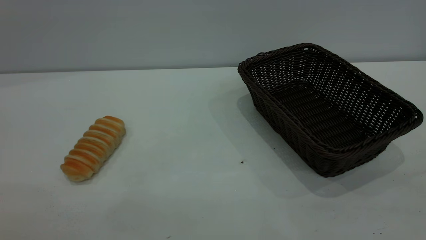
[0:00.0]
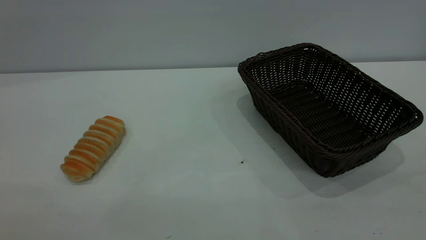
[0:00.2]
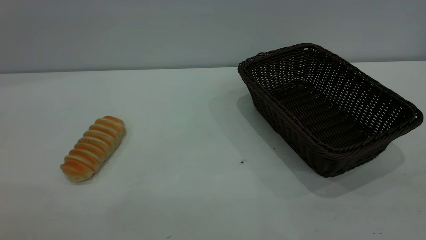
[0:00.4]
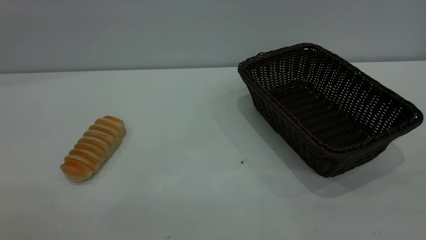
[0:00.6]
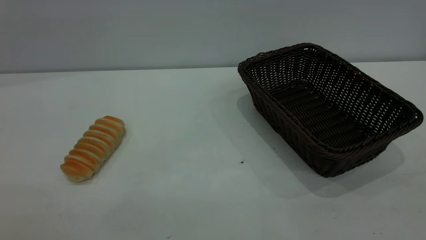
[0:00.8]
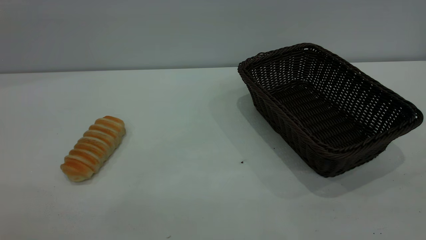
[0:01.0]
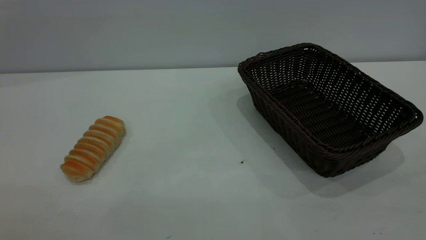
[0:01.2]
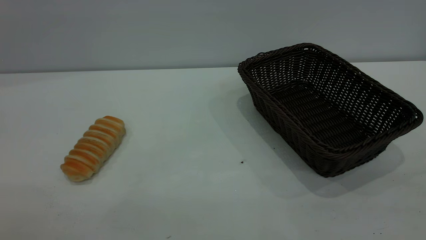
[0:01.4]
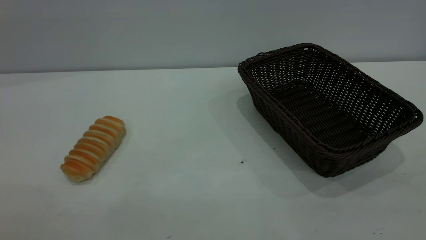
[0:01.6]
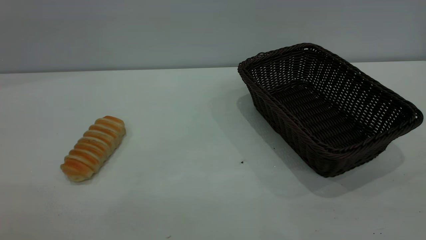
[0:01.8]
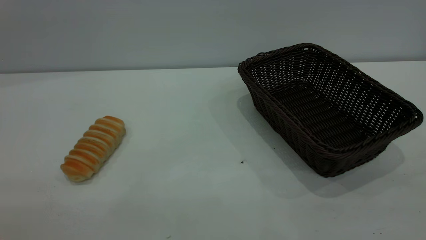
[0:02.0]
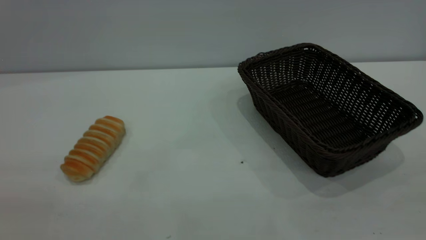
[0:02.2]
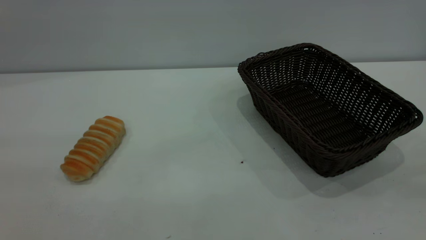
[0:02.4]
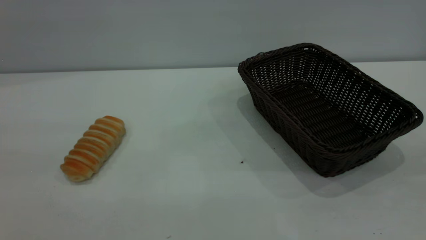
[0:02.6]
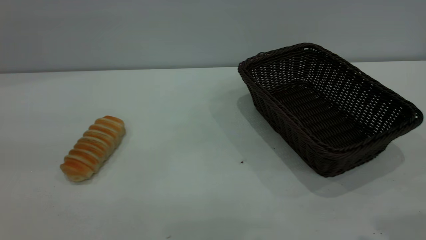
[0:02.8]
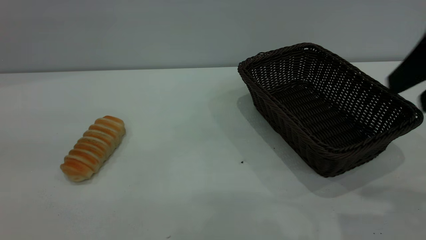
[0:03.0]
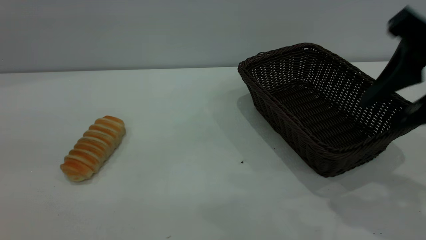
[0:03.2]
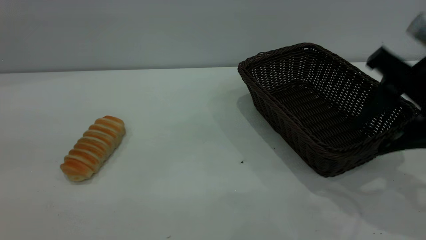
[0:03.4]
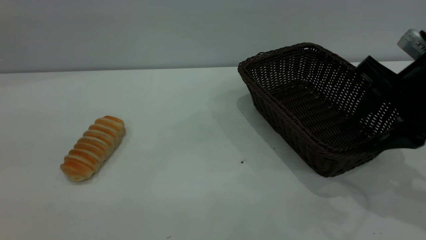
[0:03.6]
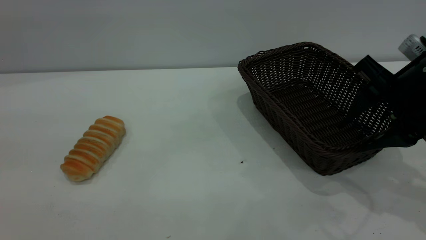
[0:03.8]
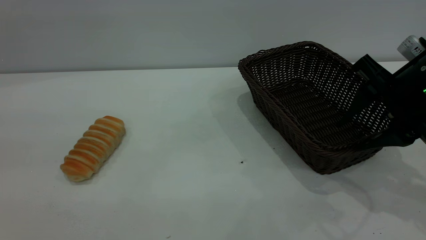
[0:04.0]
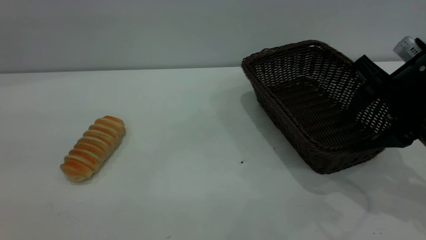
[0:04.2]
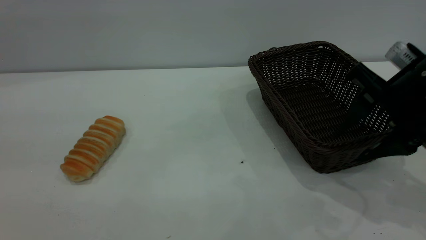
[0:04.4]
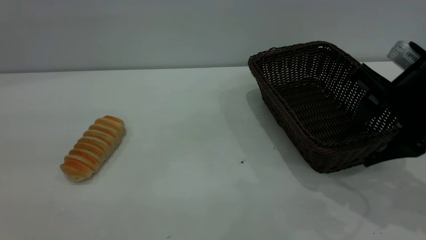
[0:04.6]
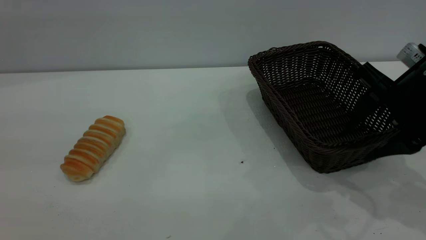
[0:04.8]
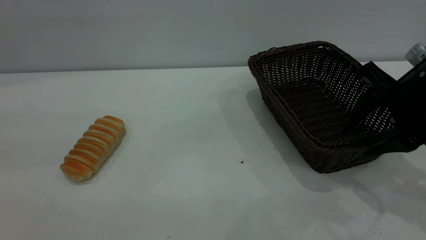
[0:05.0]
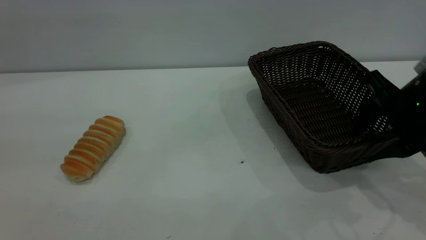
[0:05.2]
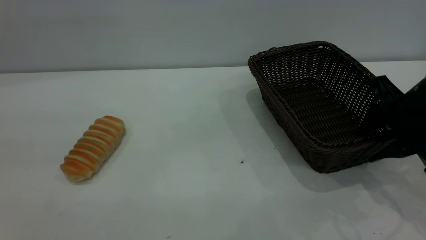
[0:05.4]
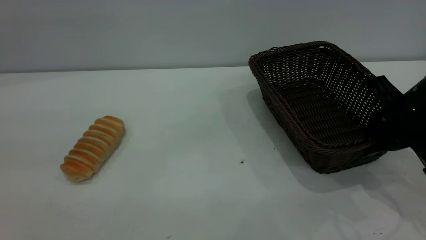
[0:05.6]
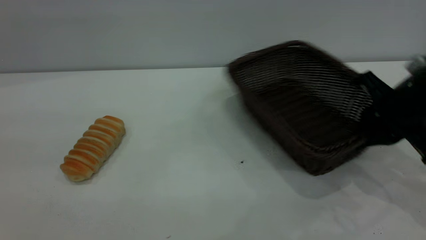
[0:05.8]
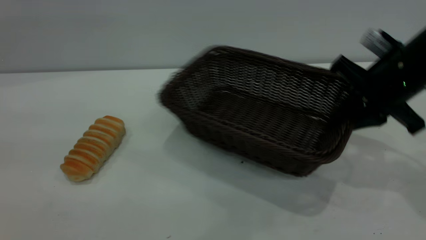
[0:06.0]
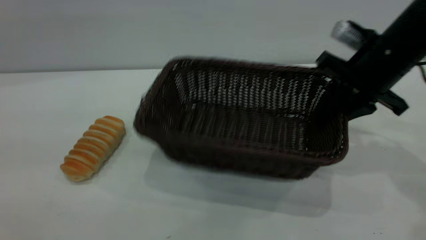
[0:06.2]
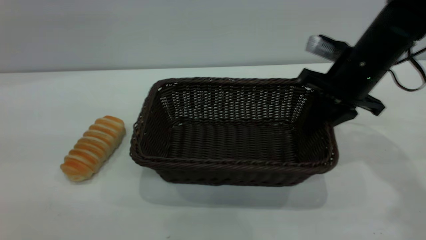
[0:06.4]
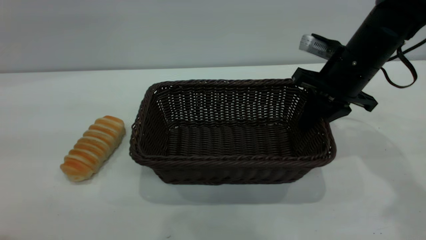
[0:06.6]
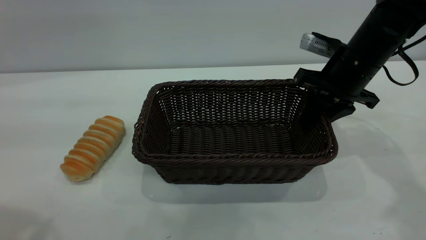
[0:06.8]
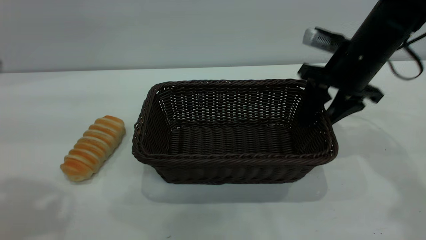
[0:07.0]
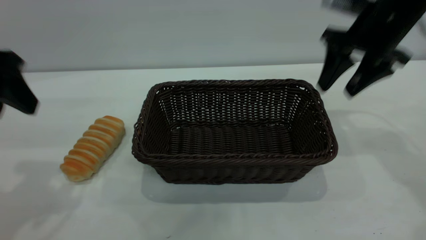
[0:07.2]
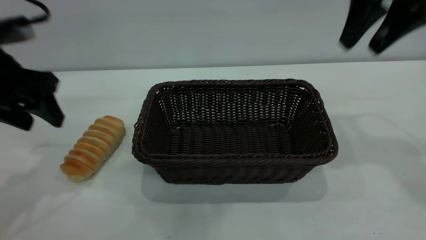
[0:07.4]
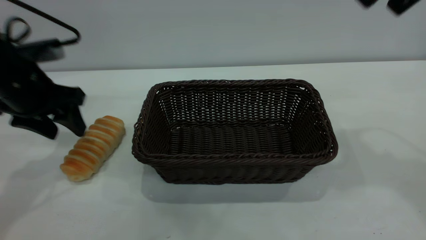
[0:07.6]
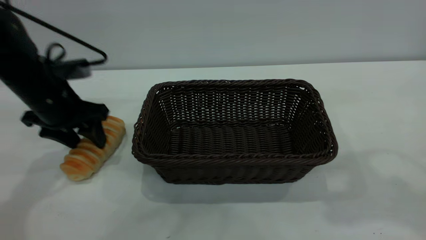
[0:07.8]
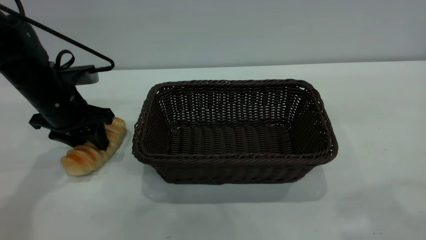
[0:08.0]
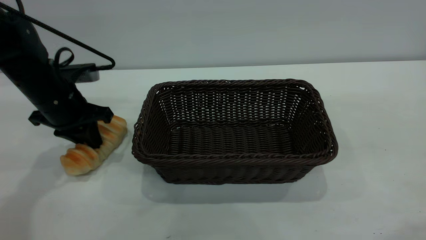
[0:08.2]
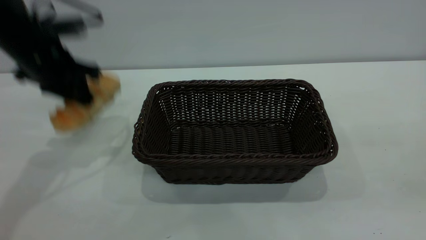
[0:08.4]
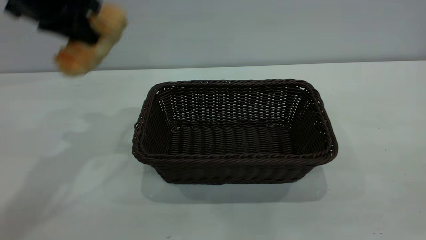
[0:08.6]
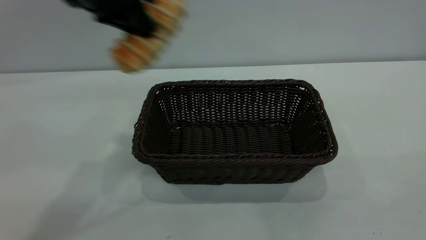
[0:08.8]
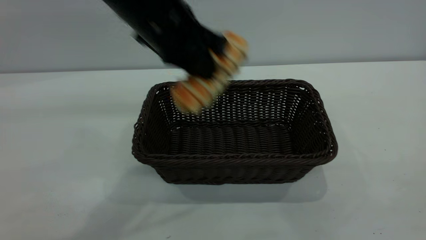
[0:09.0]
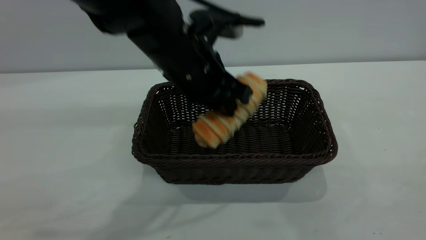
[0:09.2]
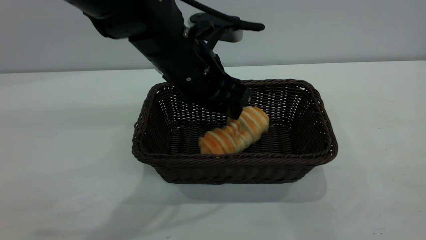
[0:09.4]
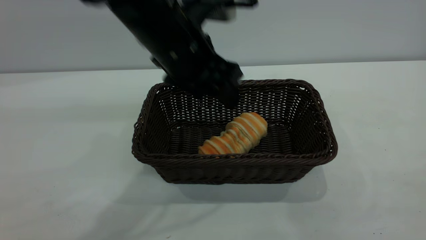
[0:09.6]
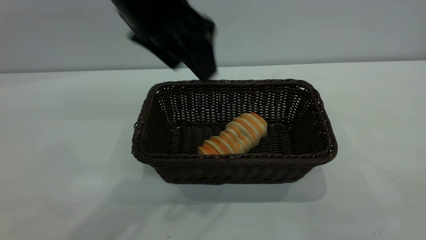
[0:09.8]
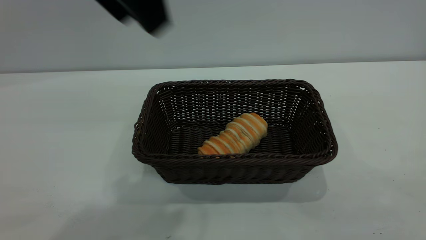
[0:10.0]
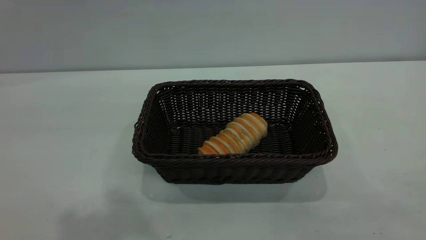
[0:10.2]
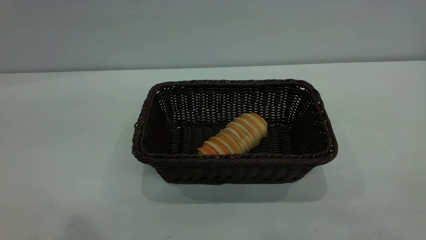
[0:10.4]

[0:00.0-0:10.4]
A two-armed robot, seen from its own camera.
Task of the whole recording: One hand grasps the black basket and places it in the middle of the table, while the other hand picks up the long bread and puts it into the black basket.
Step, 0:00.0 to 0:07.0: Move the basket to the center of view.
Step, 0:08.6 to 0:09.6: place the bread into the basket.
0:00.0 to 0:01.4: Neither gripper changes place.
0:01.4 to 0:03.0: The right gripper shifts about 25 cm forward.
0:03.0 to 0:04.4: The right gripper is displaced downward and forward by roughly 15 cm.
0:04.4 to 0:06.0: The right gripper heads forward, covering about 5 cm, and closes its fingers.
0:06.0 to 0:07.4: The right gripper shifts some 15 cm upward, and opens up. Meanwhile the left gripper is displaced forward and downward by about 30 cm.
0:07.4 to 0:09.0: The left gripper is displaced to the right by approximately 20 cm, and closes up, while the right gripper shifts some 35 cm backward.
0:09.0 to 0:10.4: The left gripper goes some 35 cm upward, backward and to the left, and opens.

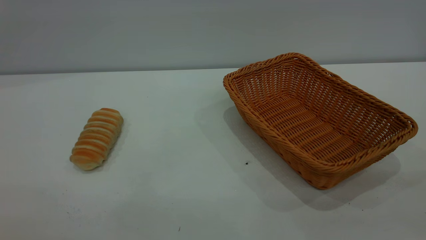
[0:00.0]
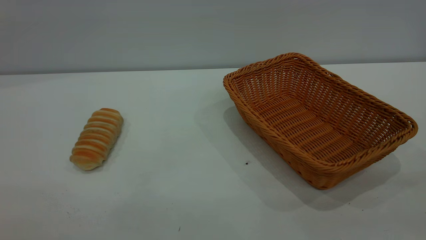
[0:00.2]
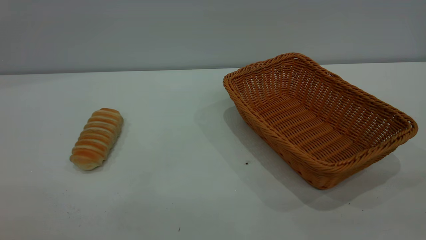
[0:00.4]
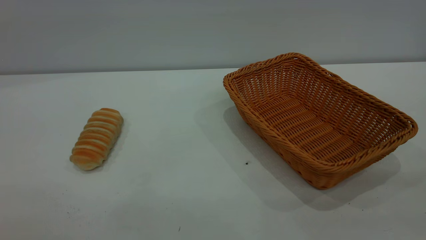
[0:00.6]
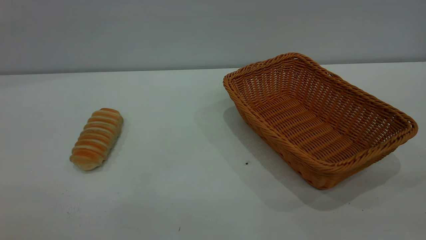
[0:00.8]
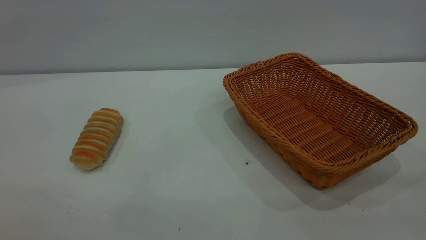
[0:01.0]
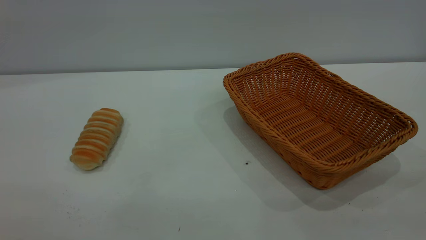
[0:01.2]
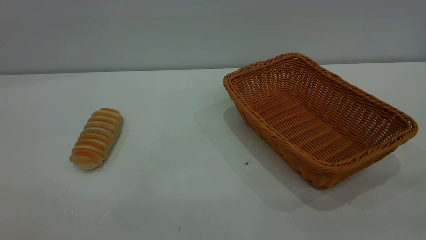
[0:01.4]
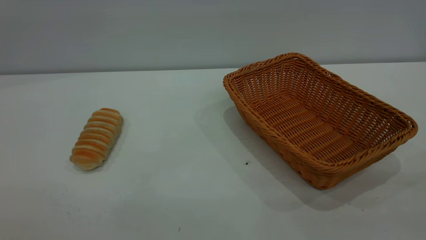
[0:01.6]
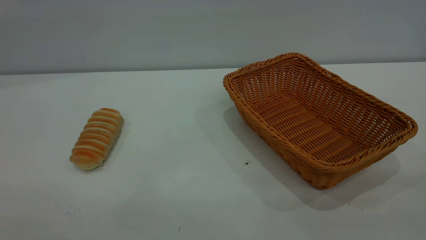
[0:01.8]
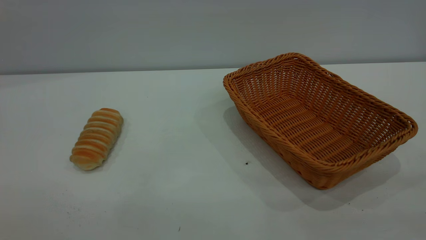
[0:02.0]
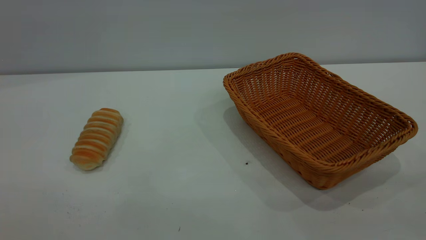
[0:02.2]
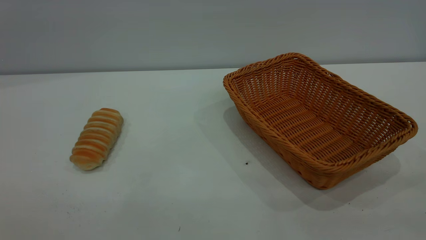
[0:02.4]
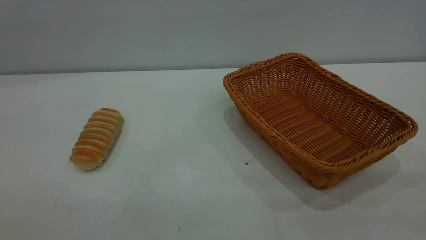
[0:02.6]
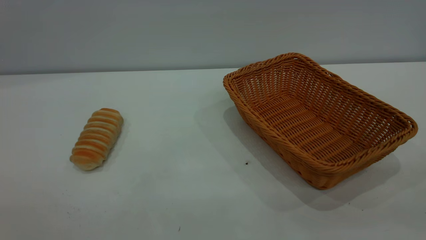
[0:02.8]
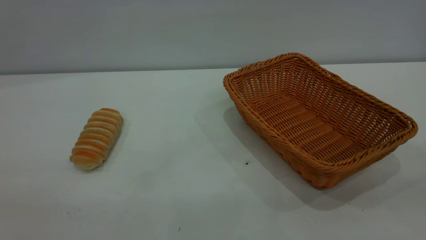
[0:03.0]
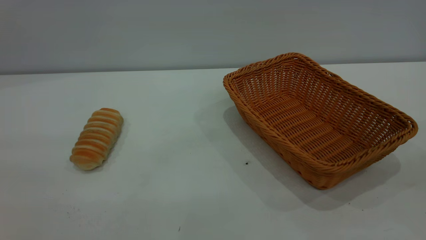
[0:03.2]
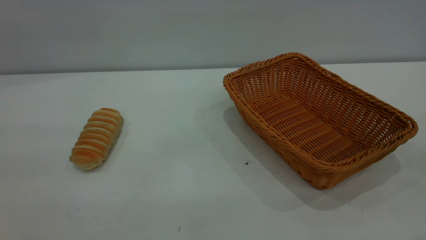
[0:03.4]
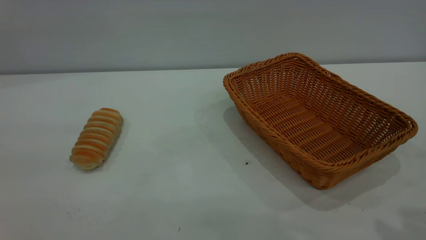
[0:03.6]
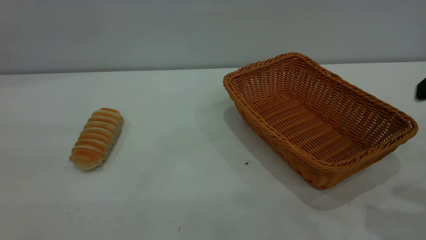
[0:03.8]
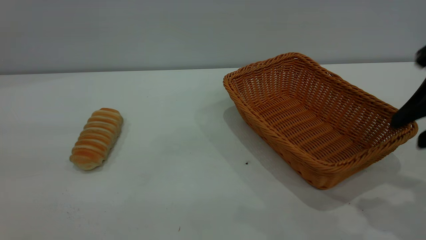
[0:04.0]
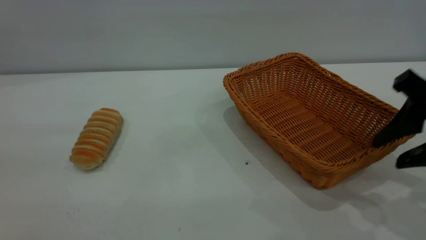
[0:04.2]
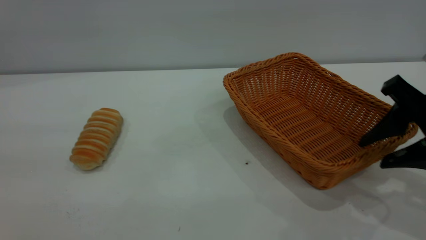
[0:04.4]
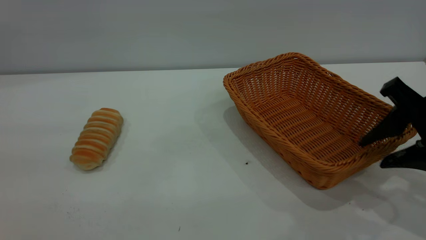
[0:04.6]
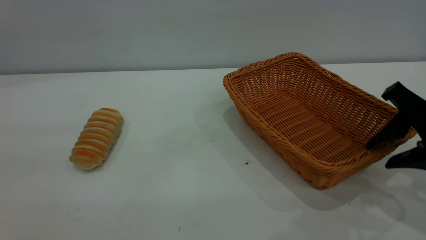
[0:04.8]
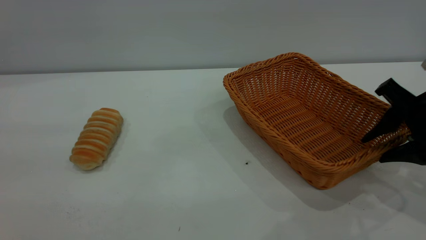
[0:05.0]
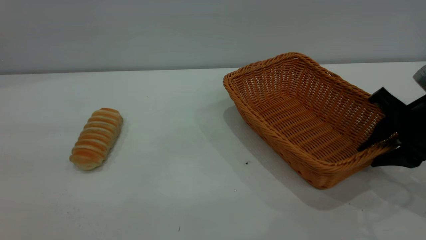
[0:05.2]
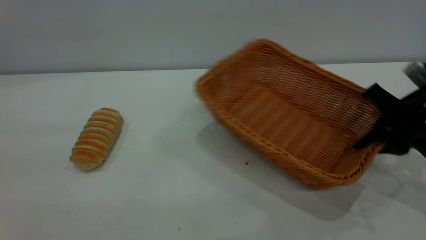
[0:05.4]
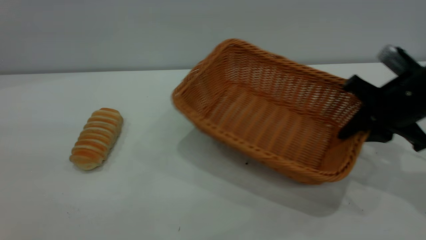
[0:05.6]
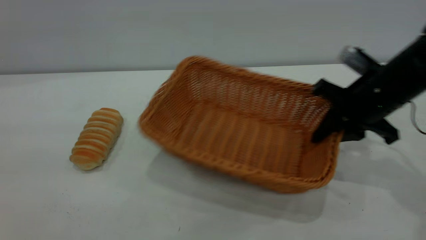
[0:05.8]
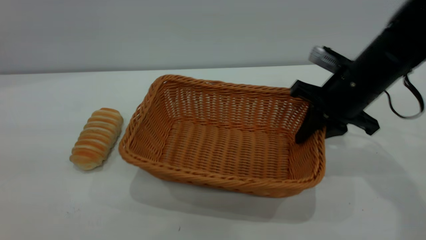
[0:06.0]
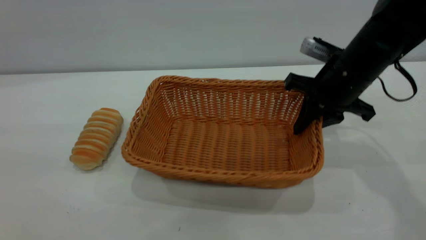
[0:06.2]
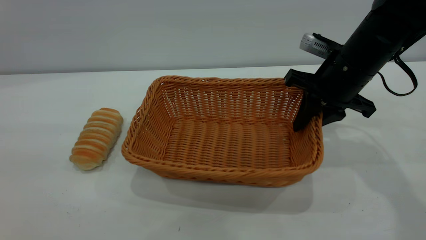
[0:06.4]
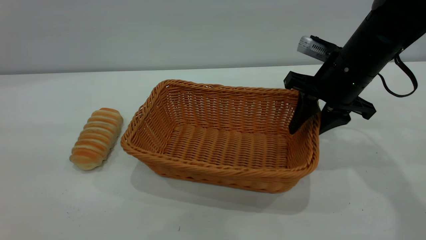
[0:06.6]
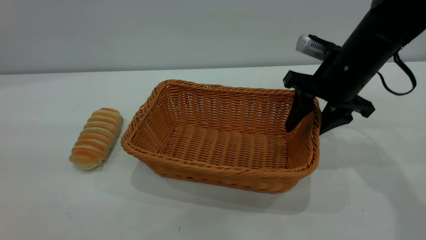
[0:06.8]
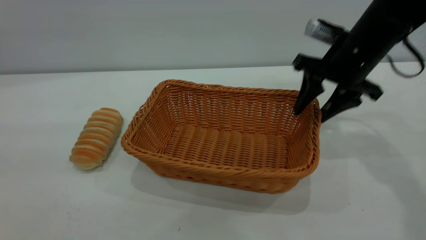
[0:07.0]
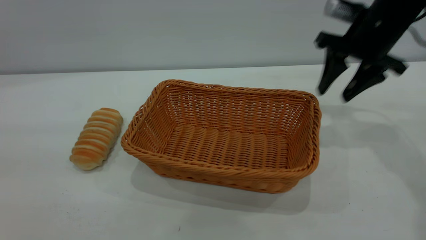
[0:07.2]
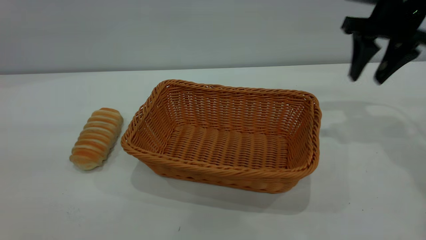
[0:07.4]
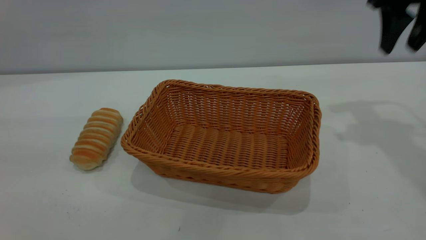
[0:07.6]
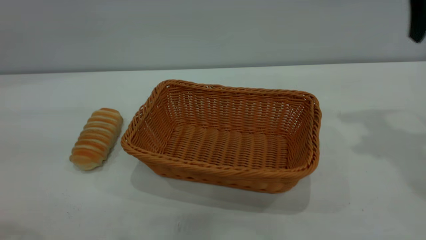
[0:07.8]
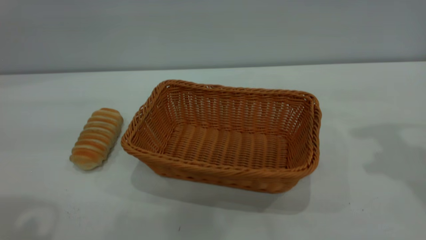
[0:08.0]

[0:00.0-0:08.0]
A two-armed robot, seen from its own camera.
Task of the whole recording: One hand grasps the yellow basket and places it in the middle of the table, while the other hand picks up the long bread and puts it into the yellow basket.
Step, 0:00.0 to 0:07.0: Move the basket to the center of view.
0:00.0 to 0:01.6: Neither gripper changes place.
0:03.2 to 0:04.8: The right gripper moves downward and forward, about 25 cm, and opens its fingers.
0:04.8 to 0:06.4: The right gripper shifts approximately 15 cm forward and to the left, and closes its fingers.
0:06.4 to 0:08.0: The right gripper moves upward and to the right, some 20 cm, and opens its fingers; the left gripper goes some 15 cm forward.
